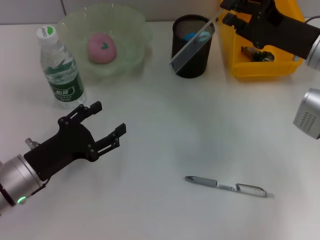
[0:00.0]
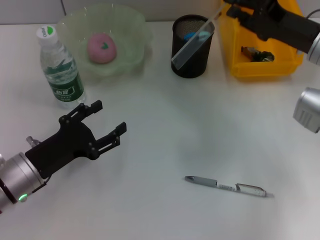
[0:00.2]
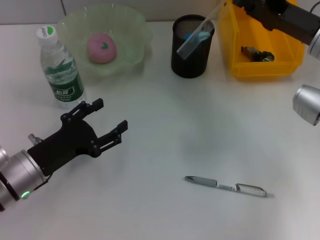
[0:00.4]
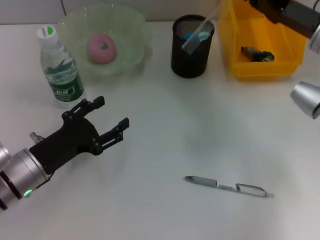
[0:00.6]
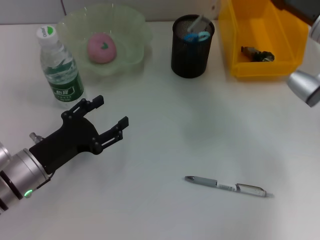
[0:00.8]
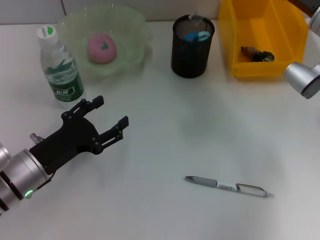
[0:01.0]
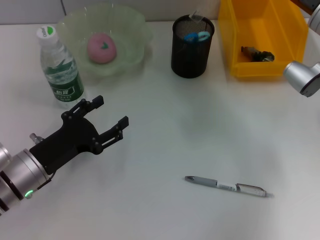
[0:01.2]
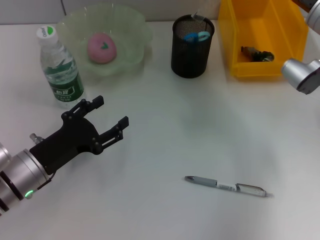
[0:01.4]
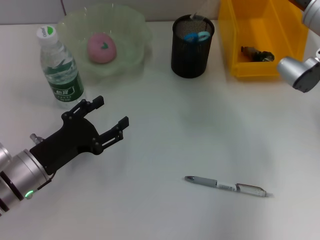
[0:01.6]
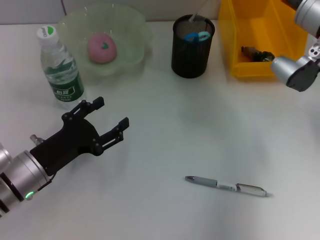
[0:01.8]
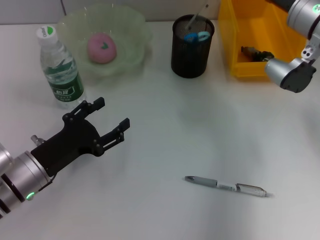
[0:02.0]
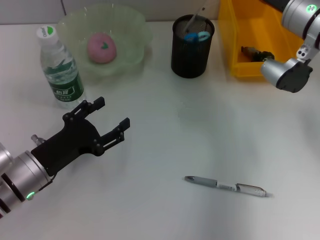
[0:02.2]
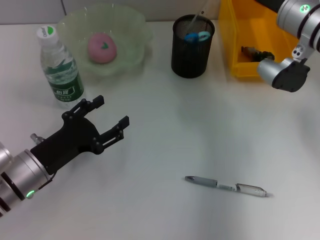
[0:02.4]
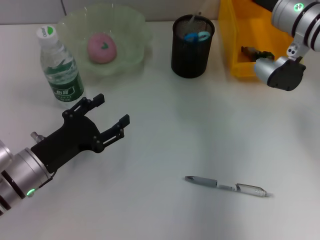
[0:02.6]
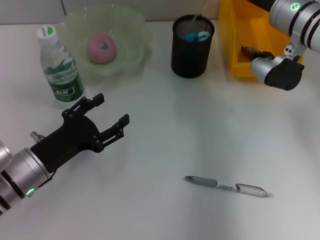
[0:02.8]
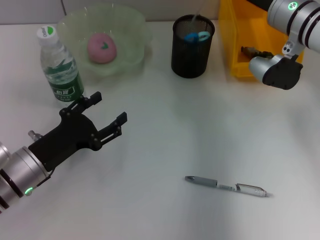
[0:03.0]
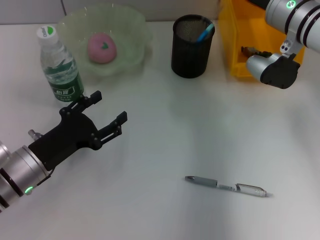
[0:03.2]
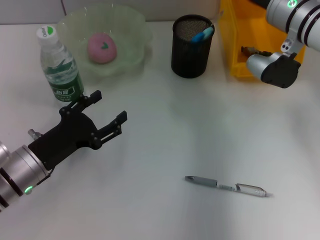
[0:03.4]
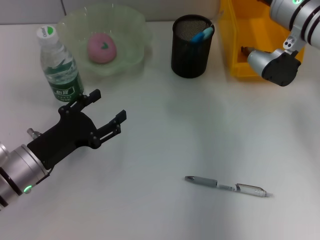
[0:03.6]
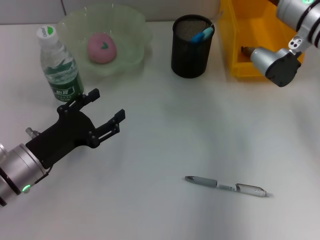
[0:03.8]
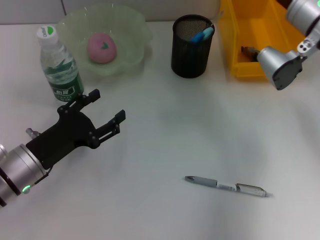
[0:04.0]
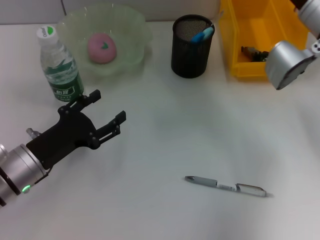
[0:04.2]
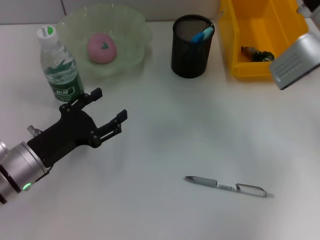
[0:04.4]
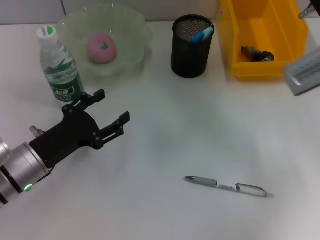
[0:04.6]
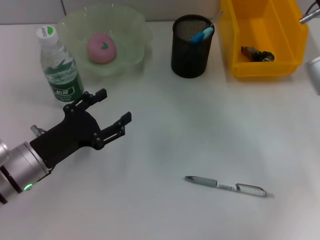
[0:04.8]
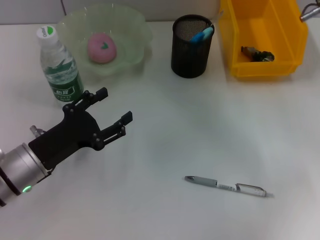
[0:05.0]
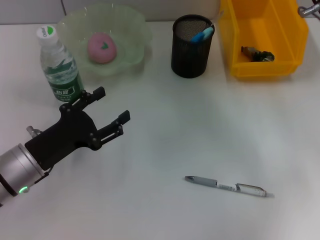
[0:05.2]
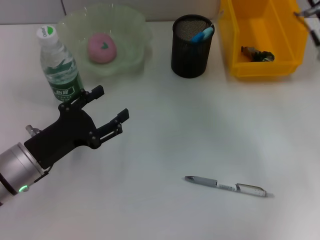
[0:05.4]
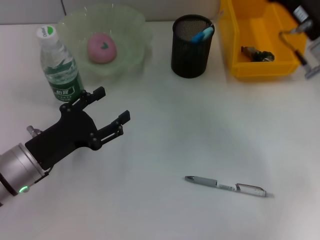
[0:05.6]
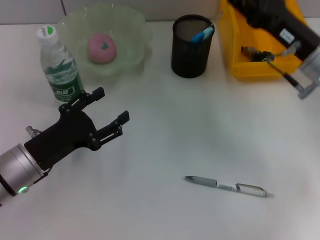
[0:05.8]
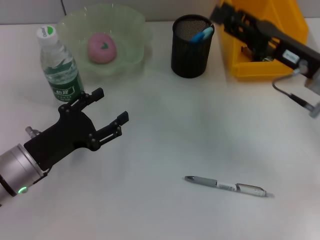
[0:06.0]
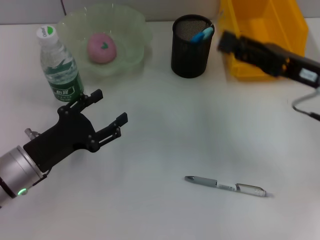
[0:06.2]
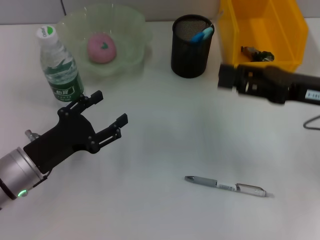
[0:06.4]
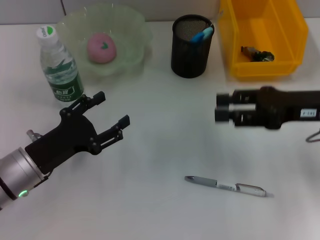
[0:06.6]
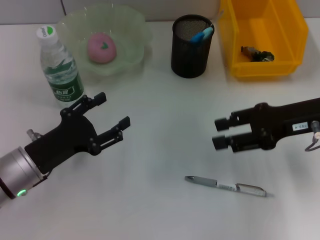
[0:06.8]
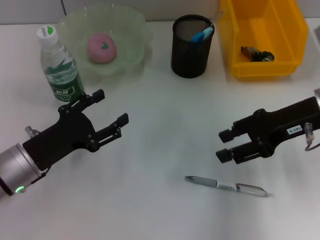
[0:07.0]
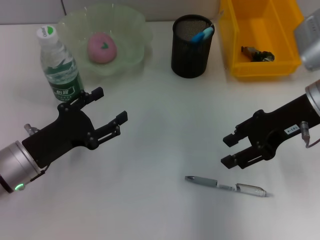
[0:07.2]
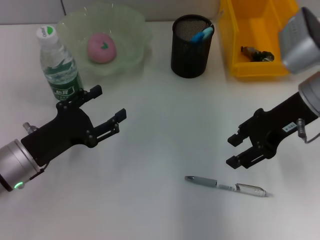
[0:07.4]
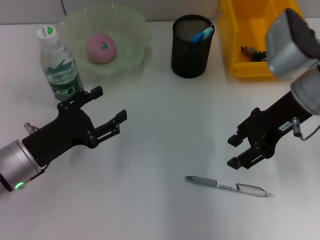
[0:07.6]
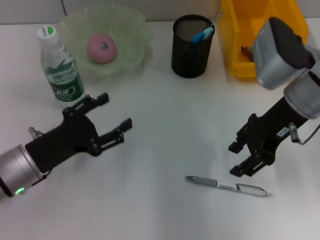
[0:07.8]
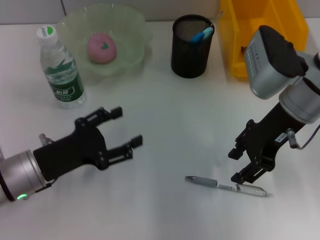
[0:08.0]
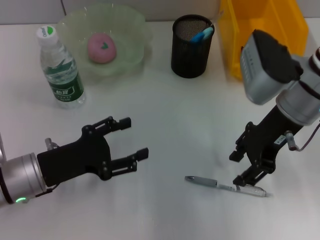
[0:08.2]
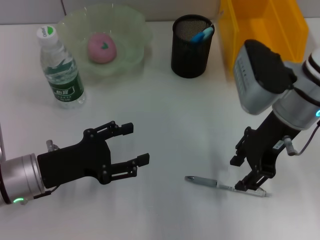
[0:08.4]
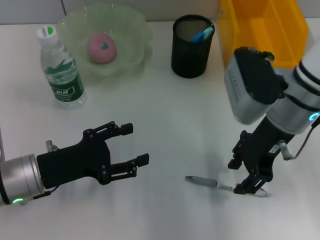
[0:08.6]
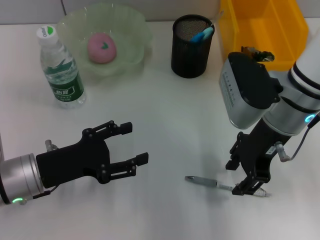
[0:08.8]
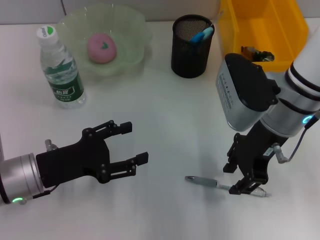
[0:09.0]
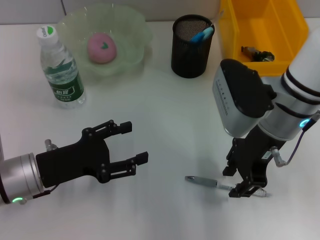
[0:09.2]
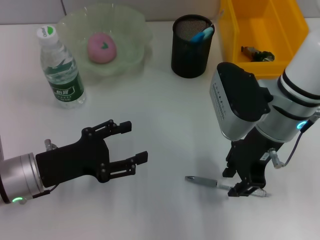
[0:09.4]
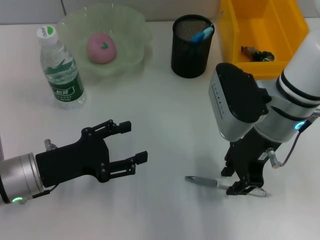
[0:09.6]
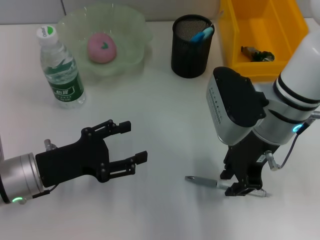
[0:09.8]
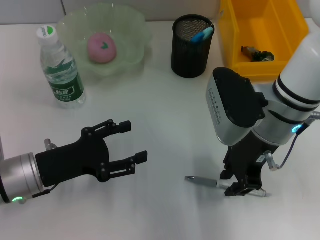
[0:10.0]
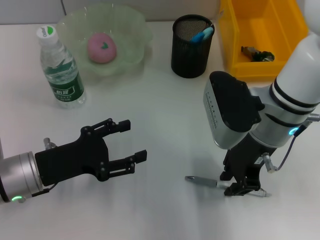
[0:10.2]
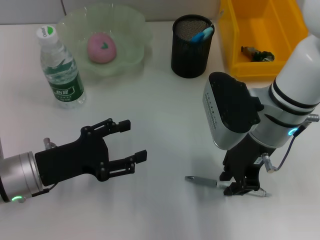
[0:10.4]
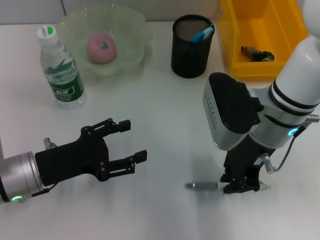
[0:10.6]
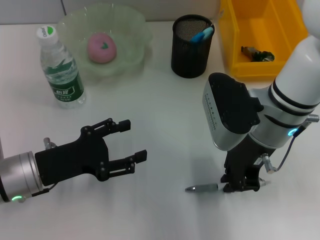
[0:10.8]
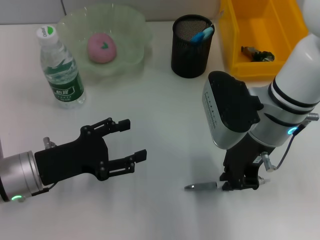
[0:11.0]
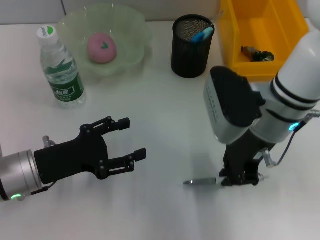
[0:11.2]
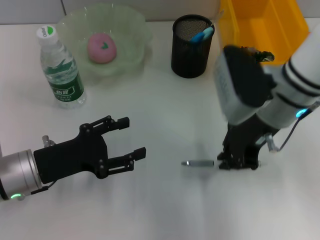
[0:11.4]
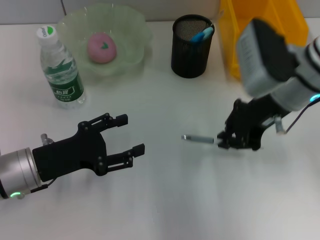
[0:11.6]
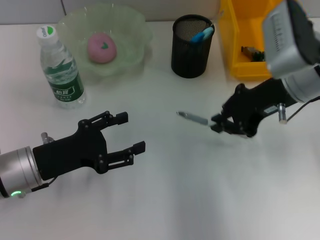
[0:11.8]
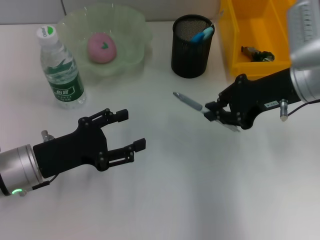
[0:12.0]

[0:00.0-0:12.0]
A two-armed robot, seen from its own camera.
Step, 0:00.0 to 0:03.4: Place the ruler into the pen holder with the right hand.
Step, 0:03.6 to 0:10.6: Grab the gray spring-action pen with the right hand.
0:01.6 to 0:03.0: The right gripper ends up some 5 cm from where it was.
0:03.0 to 0:04.4: The right gripper travels backward by about 5 cm.
0:04.4 to 0:06.0: The right gripper moves backward, some 5 cm.
0:06.0 to 0:07.6: The right gripper moves roughly 5 cm.
0:07.6 to 0:09.0: The right gripper goes roughly 5 cm to the left.
0:09.0 to 0:10.4: The grippers make only small movements.
0:10.4 to 0:12.0: The right gripper heads to the right, covering about 10 cm.

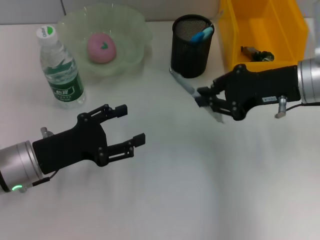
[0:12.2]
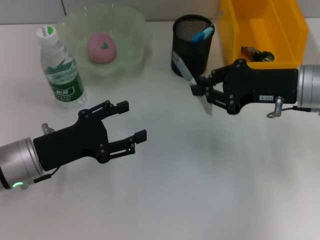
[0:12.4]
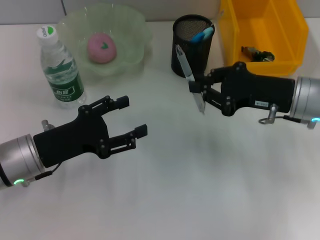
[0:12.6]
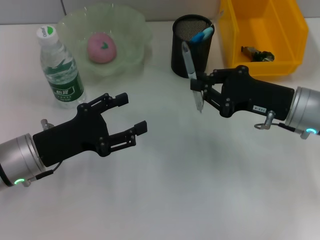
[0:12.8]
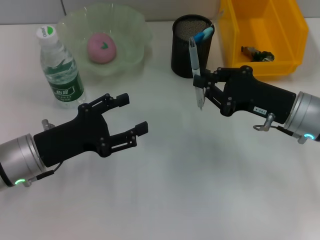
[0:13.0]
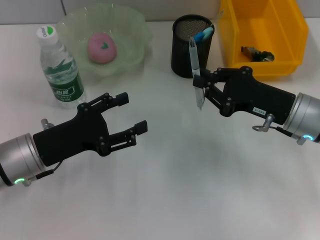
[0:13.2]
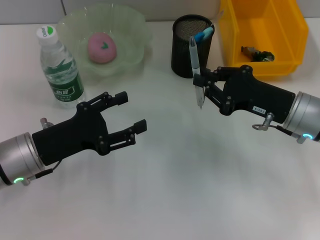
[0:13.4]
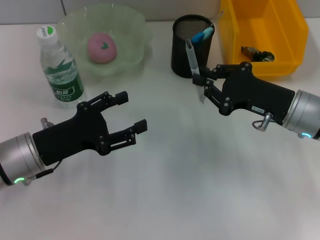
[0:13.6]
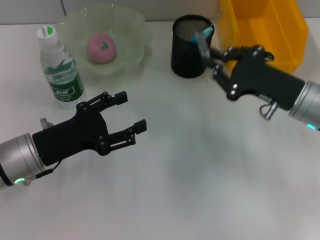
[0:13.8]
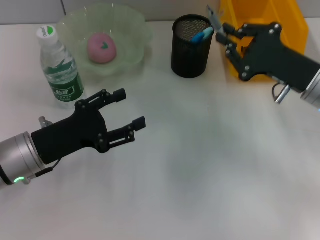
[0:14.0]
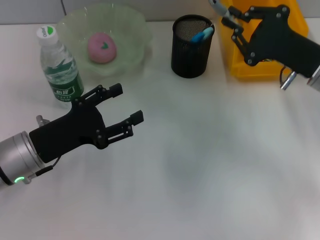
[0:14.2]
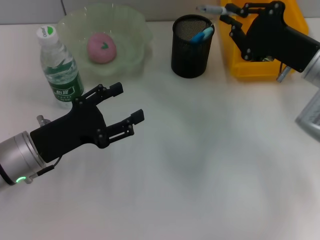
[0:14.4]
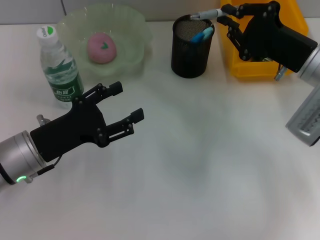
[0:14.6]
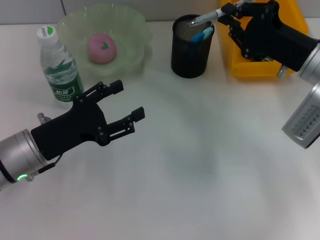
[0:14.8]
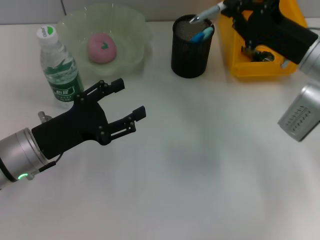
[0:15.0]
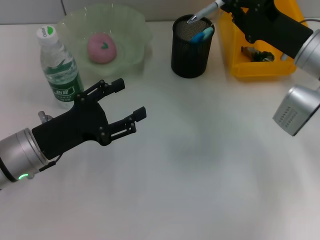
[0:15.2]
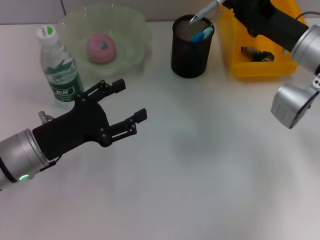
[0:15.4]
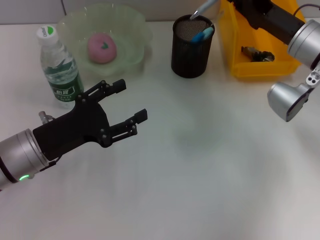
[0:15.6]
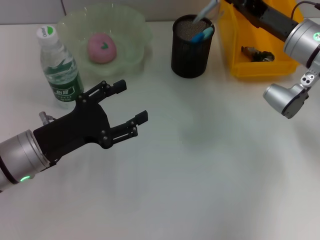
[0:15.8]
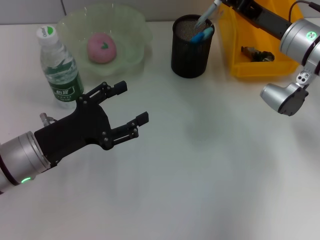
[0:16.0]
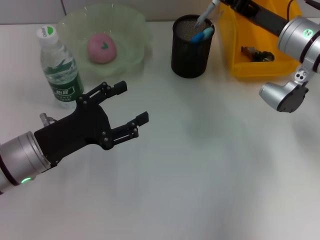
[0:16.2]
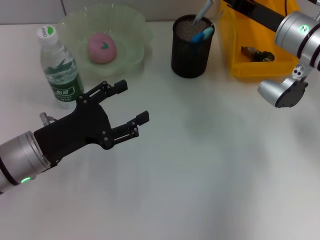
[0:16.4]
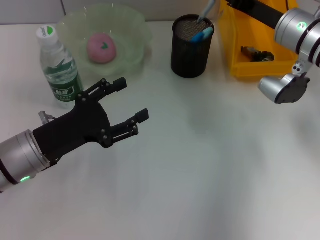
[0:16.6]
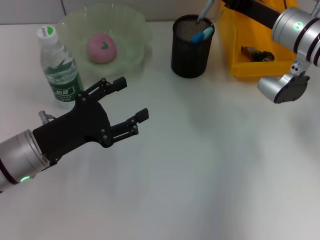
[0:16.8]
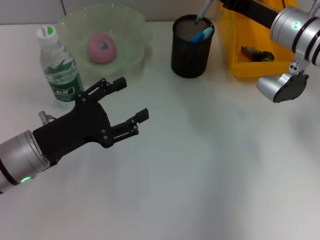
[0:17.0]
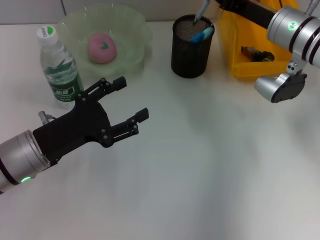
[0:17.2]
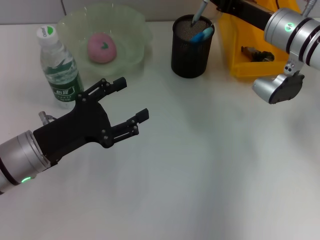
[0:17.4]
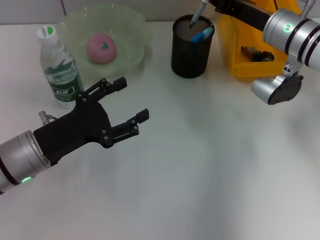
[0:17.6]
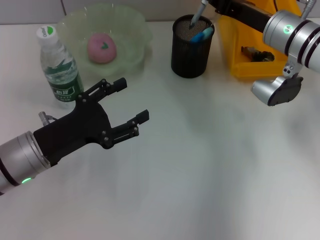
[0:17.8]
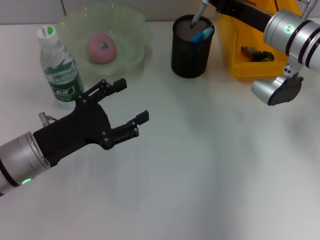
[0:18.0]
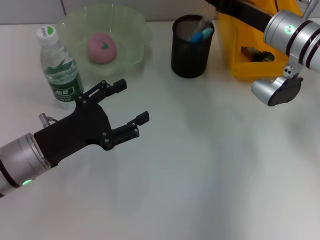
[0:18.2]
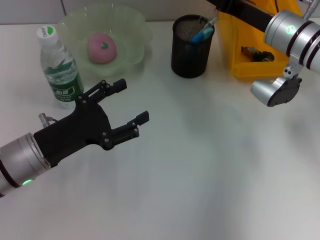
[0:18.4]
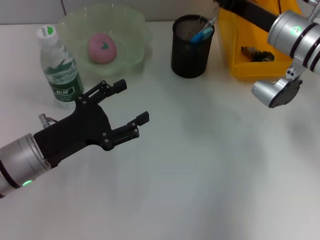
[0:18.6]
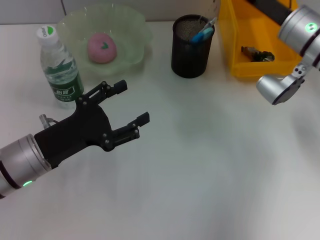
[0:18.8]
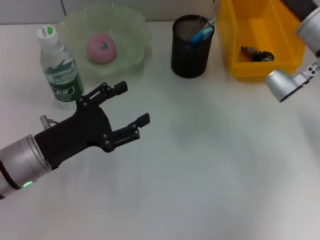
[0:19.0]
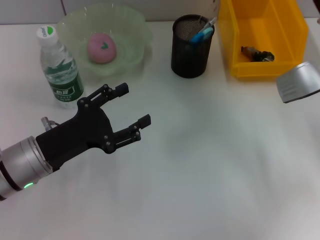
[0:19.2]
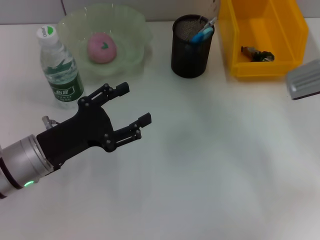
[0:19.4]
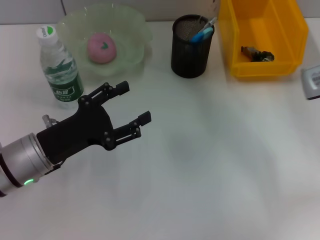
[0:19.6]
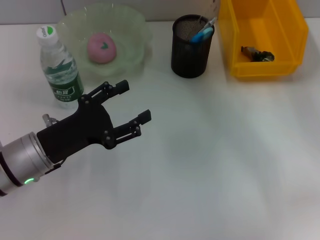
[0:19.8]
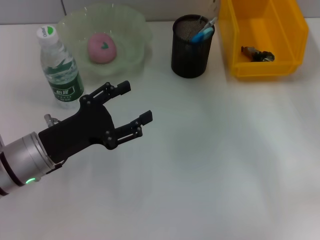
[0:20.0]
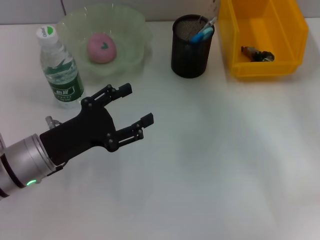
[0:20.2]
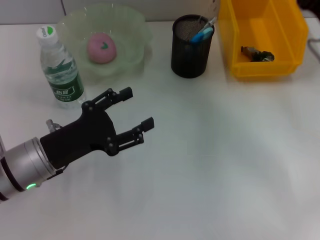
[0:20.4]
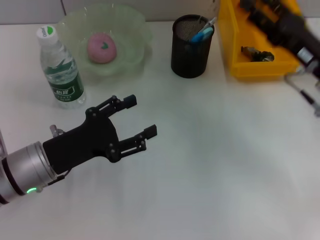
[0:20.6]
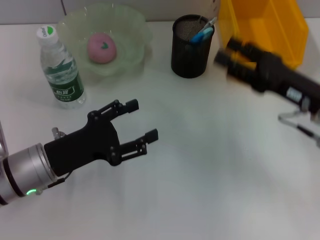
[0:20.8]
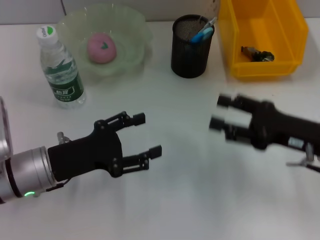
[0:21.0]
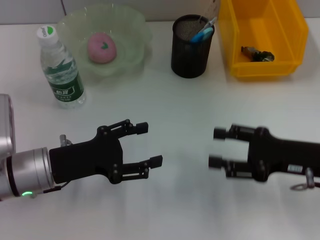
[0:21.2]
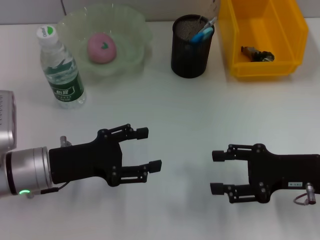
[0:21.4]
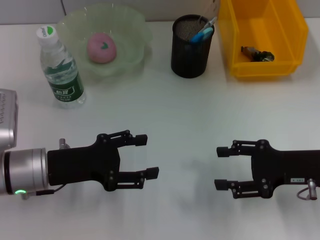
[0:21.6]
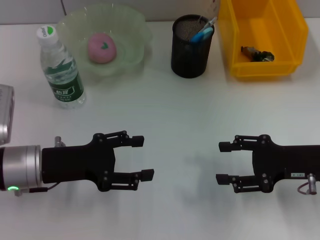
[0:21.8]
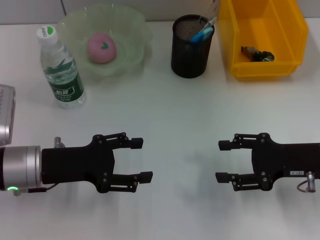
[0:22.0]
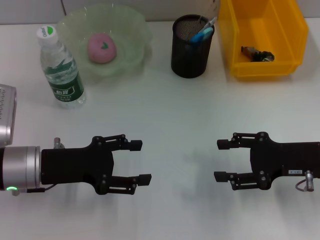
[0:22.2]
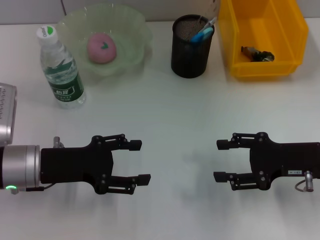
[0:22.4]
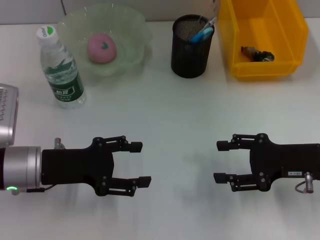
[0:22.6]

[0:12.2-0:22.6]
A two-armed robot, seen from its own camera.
Step, 0:12.2 to 0:18.2: Place the gray spring-action pen into the pen holder with the right hand.
0:12.2 to 0:13.6: The right gripper travels downward by approximately 10 cm.
0:13.6 to 0:15.2: The right gripper goes about 5 cm forward.
0:15.2 to 0:16.6: The right gripper shifts by roughly 5 cm.
0:16.6 to 0:18.2: There are only small adjustments of the grippers.
0:18.2 to 0:19.6: The right gripper moves backward and to the right, some 10 cm, and opens its fingers.
0:19.6 to 0:21.2: The right gripper travels backward and downward by some 10 cm.
0:21.2 to 0:22.6: The grippers make only small movements.
